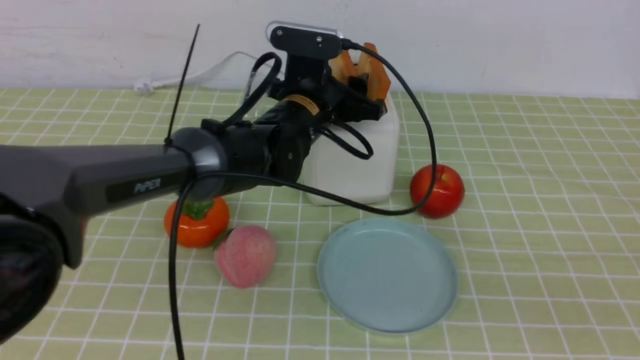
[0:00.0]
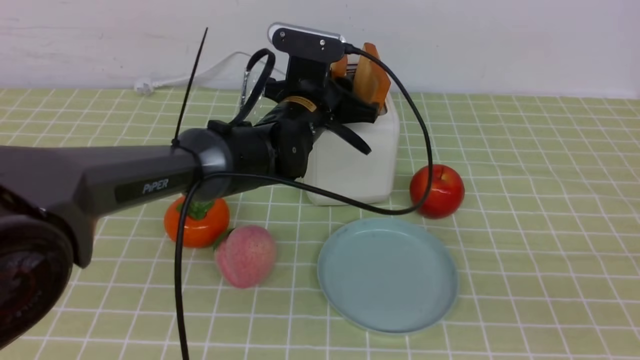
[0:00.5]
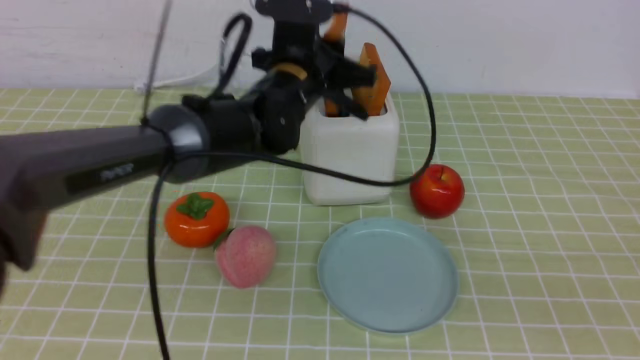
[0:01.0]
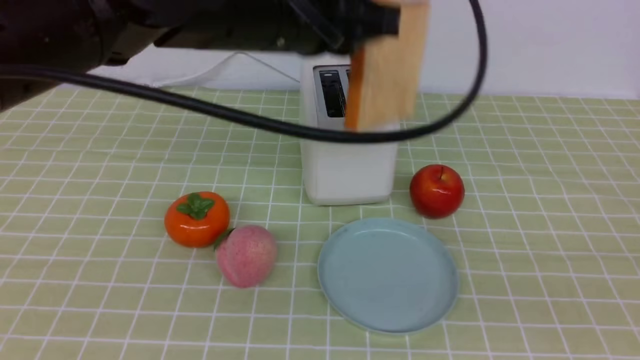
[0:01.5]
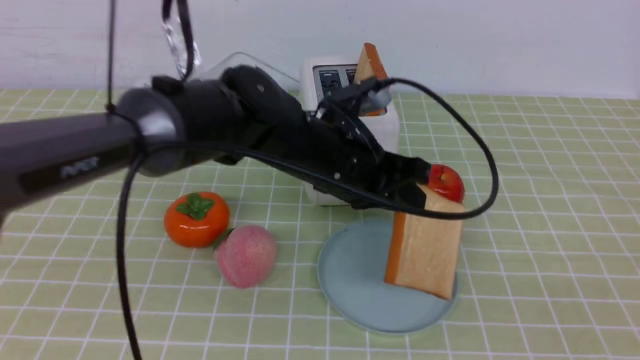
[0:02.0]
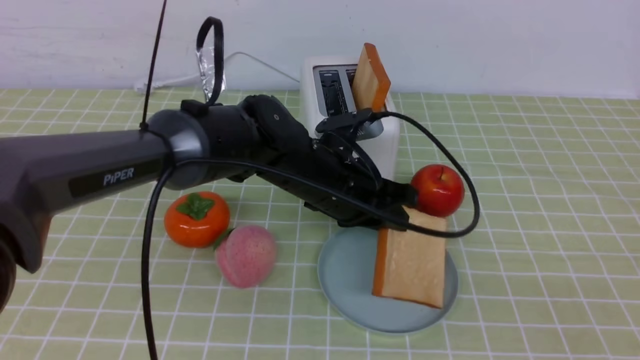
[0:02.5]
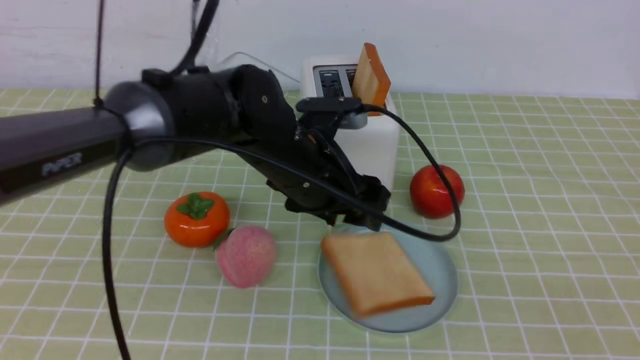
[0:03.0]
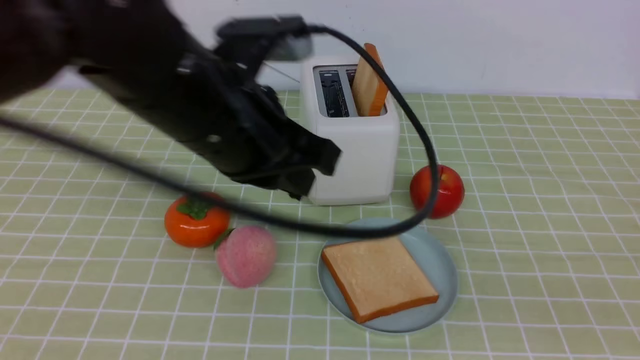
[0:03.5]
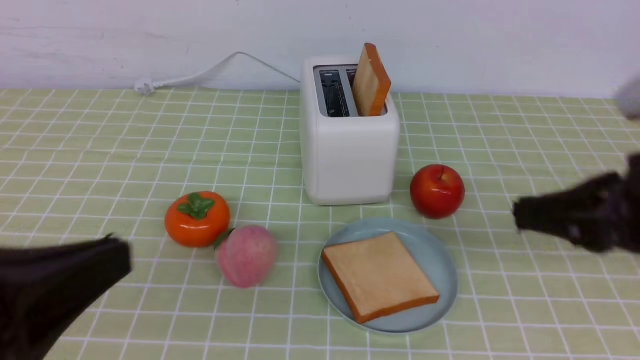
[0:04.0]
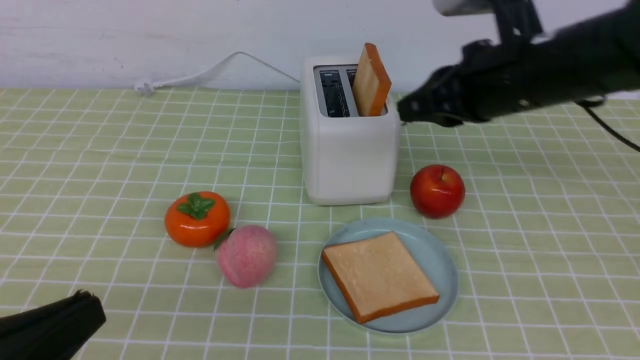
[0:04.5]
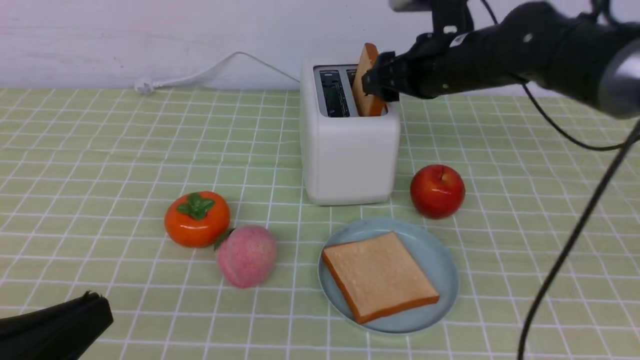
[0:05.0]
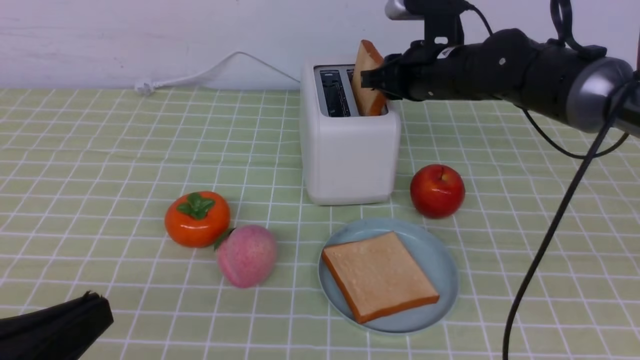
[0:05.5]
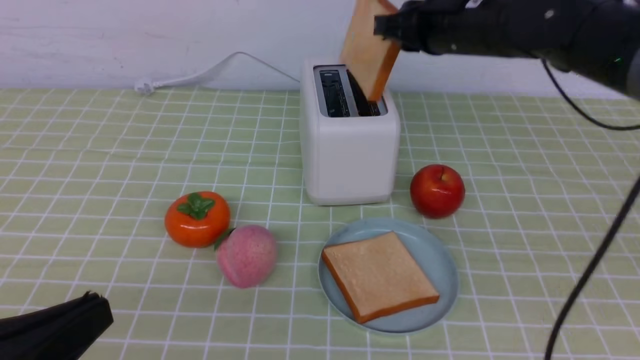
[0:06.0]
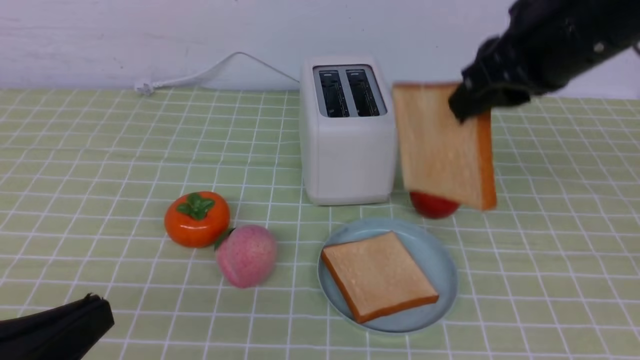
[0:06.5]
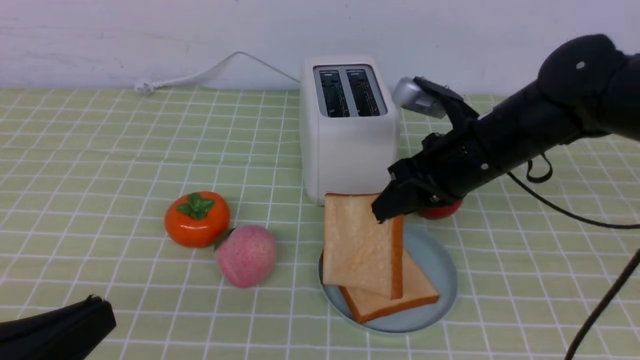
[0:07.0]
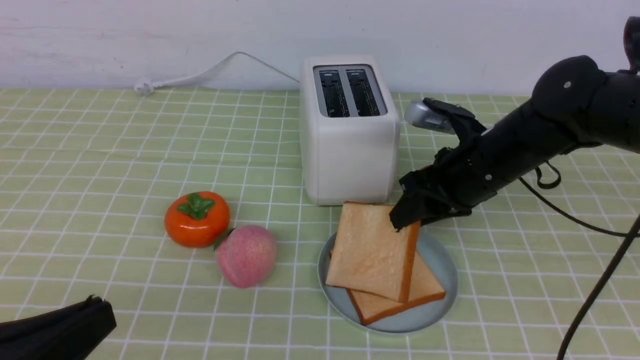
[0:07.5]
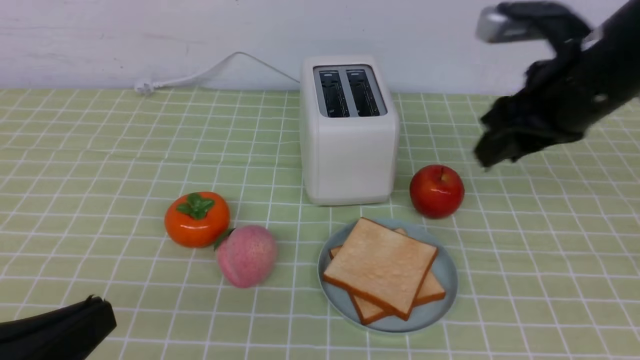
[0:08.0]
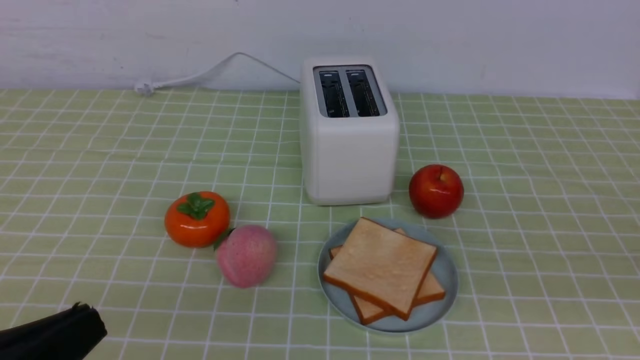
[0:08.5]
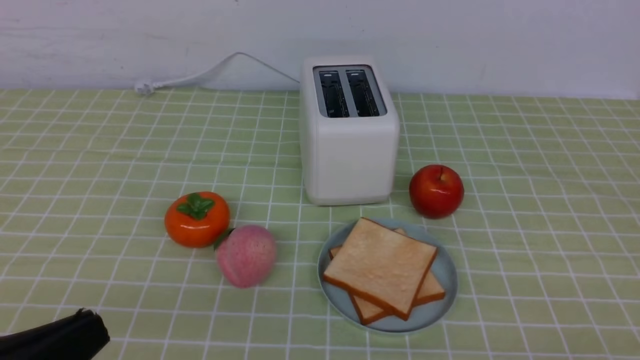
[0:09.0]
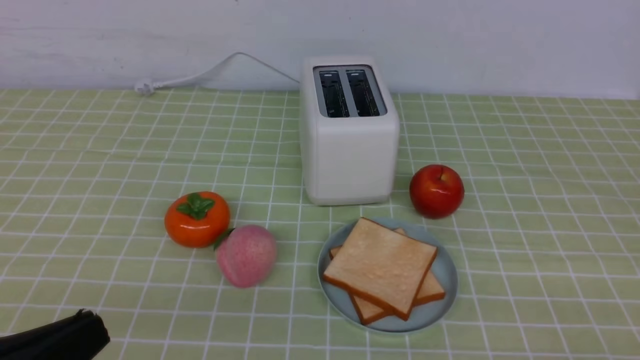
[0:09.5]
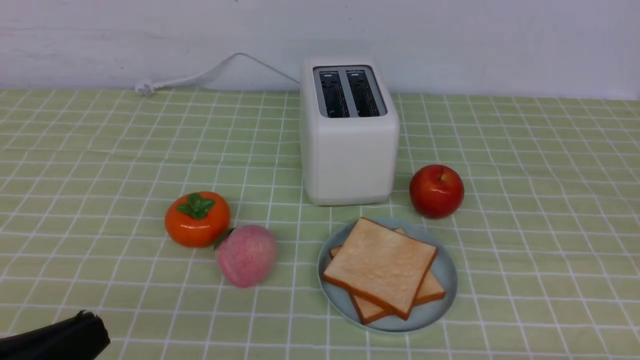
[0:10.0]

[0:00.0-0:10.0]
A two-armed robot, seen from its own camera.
Task of the whole recording: take toasted bread from bread machine on green coffee tablecloth place on plate.
Step, 0:01.5 to 0:03.5: use the left arm to put a slice of bread into the empty plate.
Step, 0:04.0 to 0:06.0: use the right arm to take out a slice of bread.
Step, 0:06.5 to 0:07.5: use the right arm to put a slice of bread into the plate.
0:00.0 to 0:02.0: The left gripper travels backward by approximately 10 cm, moves about 15 cm upward and comes back, and closes.
0:02.0 to 0:04.0: The left gripper shifts approximately 30 cm backward and to the left, and opens and closes again; the right gripper goes approximately 10 cm forward.
0:04.0 to 0:06.0: The left gripper moves downward, roughly 5 cm. Meanwhile the right gripper is displaced forward by some 25 cm, and opens, then closes once more.
0:06.0 to 0:08.0: The right gripper moves up and down over approximately 15 cm, changing direction 2 times, and opens its fingers.
0:08.0 to 0:10.0: The right gripper goes some 30 cm backward and downward, and closes.

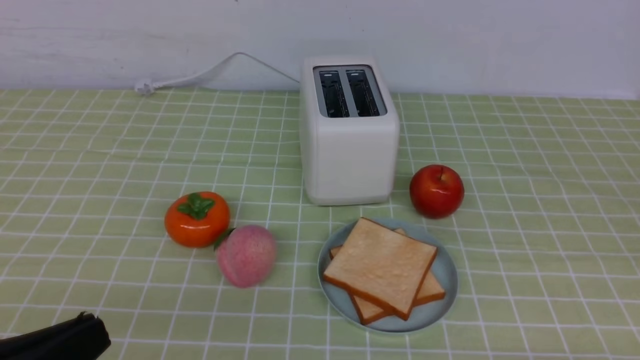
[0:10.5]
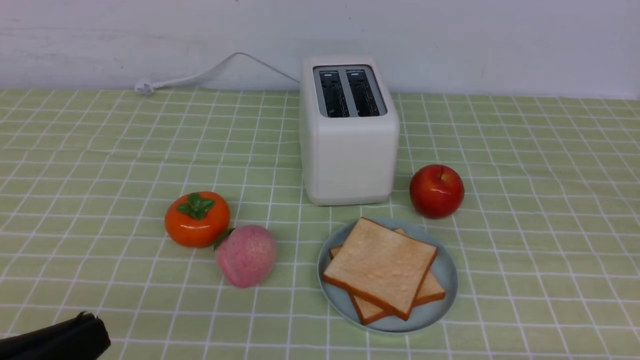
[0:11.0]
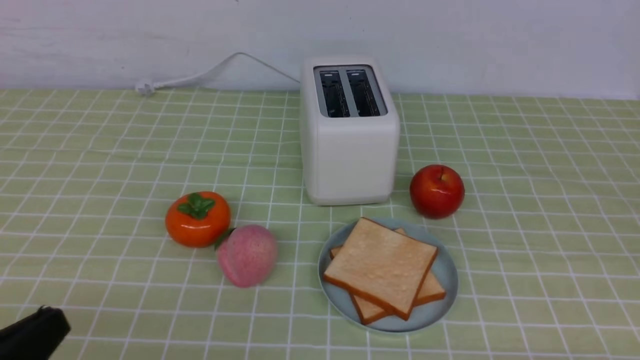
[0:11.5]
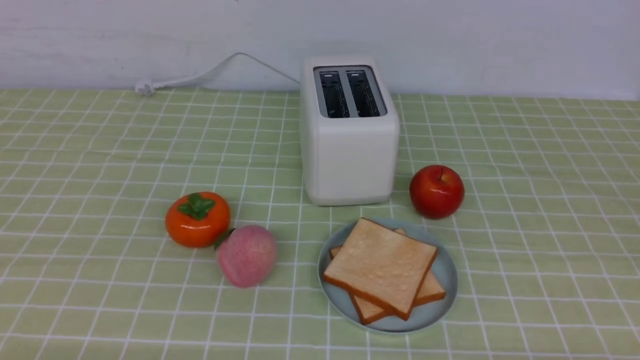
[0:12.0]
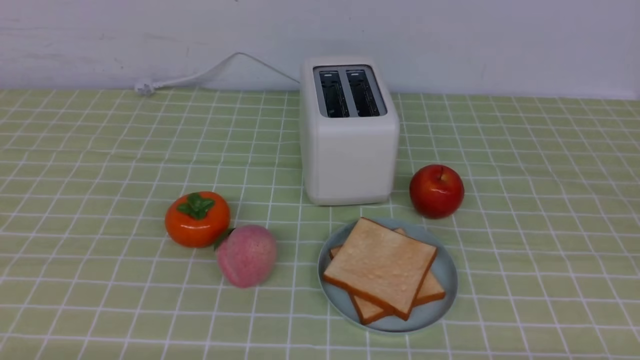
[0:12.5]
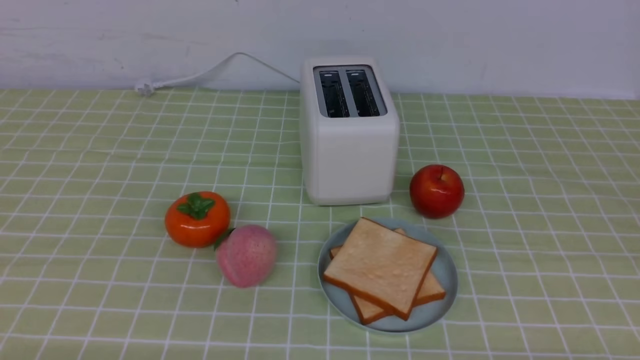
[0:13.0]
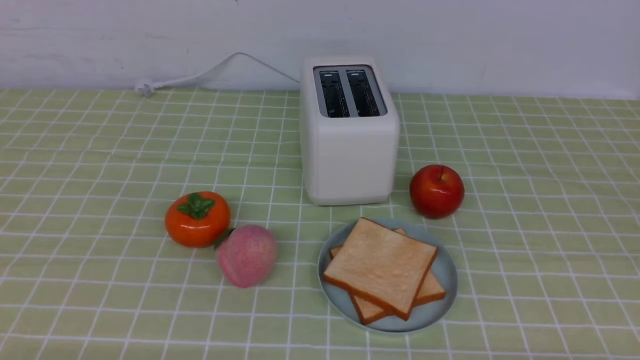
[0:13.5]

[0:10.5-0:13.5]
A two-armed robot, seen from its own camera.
Task of the whole recording: take toasted bread from bread machine on green coffee tablecloth place on plate.
0:10.5 to 0:12.0: The left gripper goes roughly 10 cm downward.
0:12.0 to 0:13.5: Both grippers stay put.
